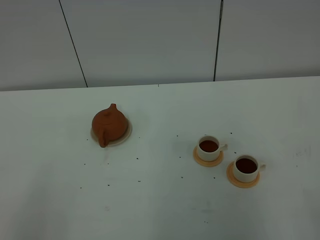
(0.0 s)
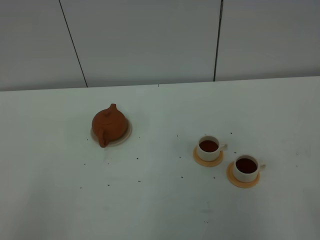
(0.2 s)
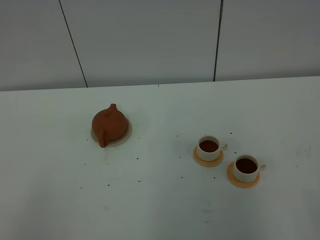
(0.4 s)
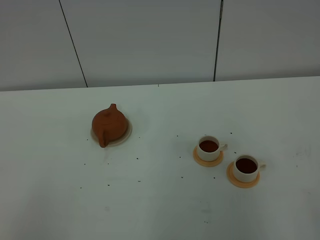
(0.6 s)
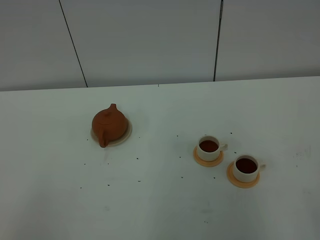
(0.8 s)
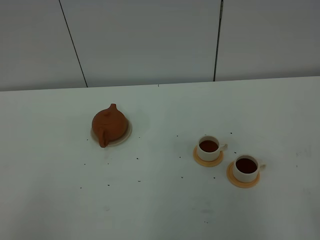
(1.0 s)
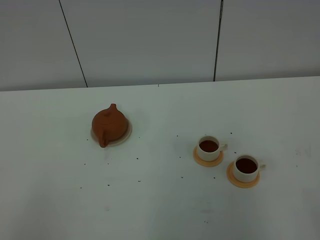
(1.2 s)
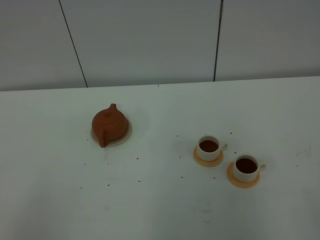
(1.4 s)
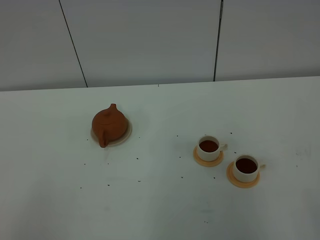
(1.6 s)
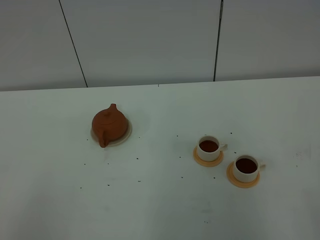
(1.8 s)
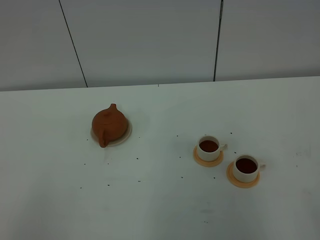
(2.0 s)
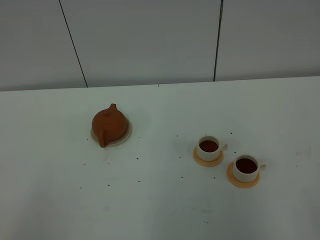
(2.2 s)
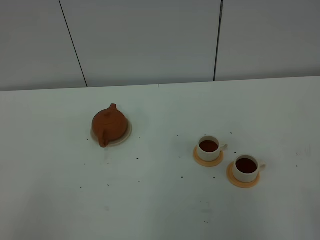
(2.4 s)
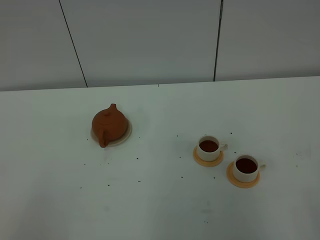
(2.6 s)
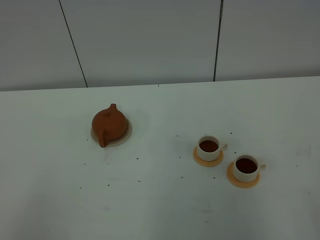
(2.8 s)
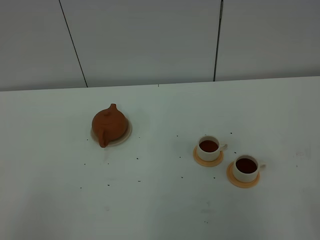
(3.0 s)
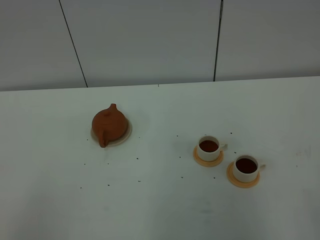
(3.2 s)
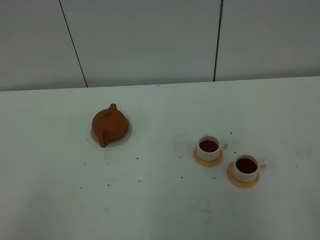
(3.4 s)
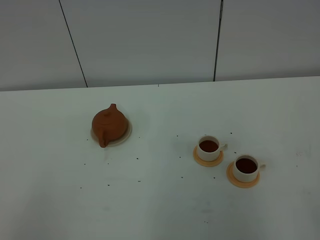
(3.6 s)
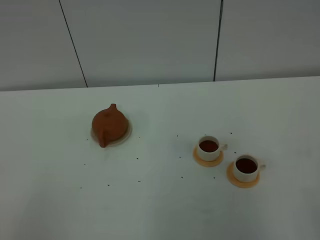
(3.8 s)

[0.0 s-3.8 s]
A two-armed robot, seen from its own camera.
Task of the whole recording: grasp the brown teapot and pour the tea into the two white teacups one by one, put the brown teapot back in its original place.
1.2 to 3.8 s: Neither gripper changes place.

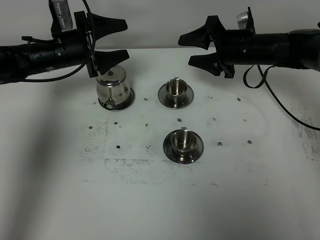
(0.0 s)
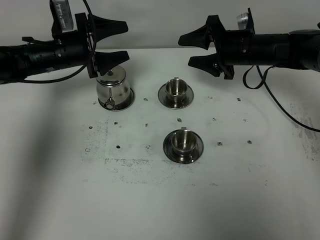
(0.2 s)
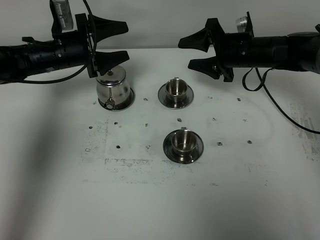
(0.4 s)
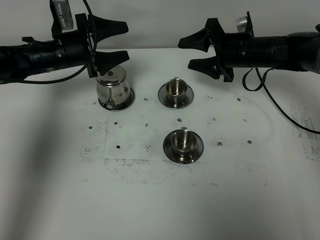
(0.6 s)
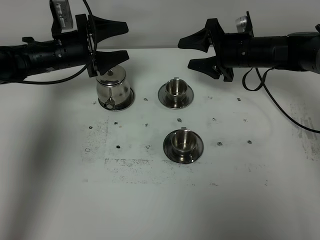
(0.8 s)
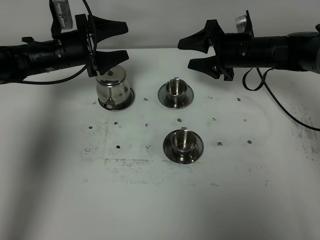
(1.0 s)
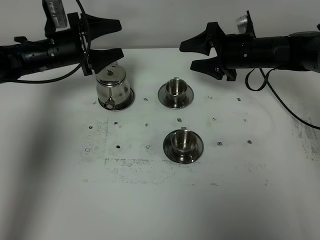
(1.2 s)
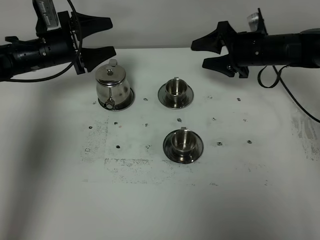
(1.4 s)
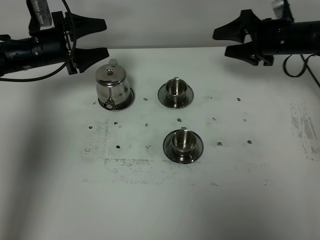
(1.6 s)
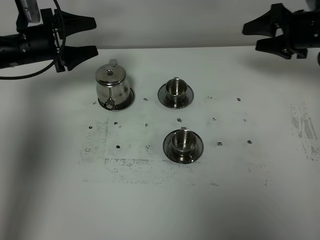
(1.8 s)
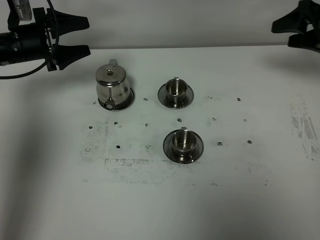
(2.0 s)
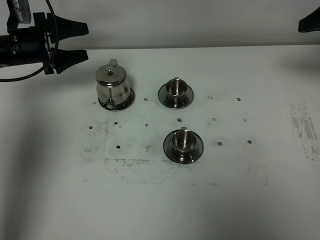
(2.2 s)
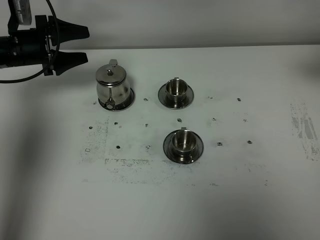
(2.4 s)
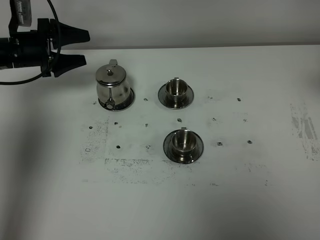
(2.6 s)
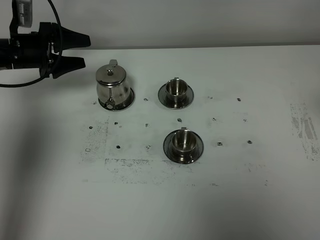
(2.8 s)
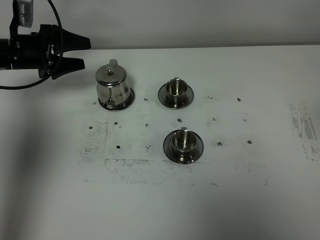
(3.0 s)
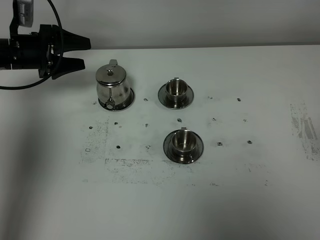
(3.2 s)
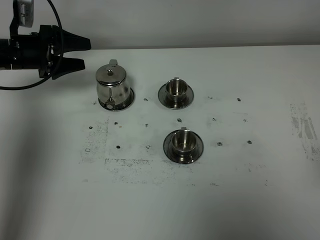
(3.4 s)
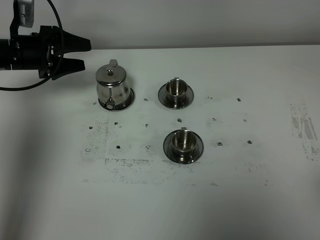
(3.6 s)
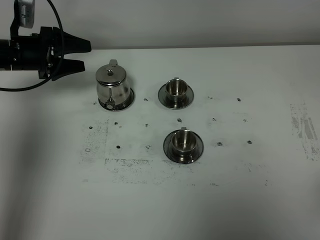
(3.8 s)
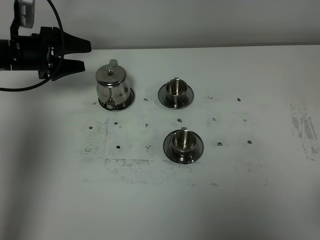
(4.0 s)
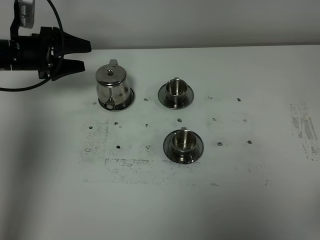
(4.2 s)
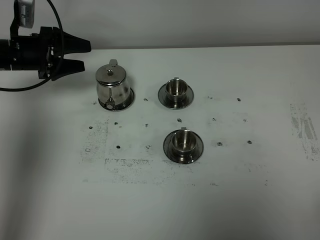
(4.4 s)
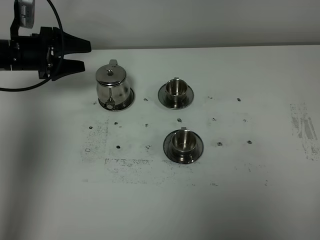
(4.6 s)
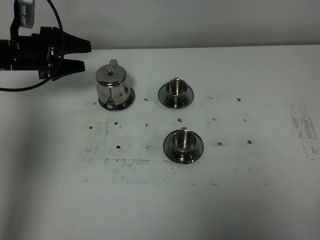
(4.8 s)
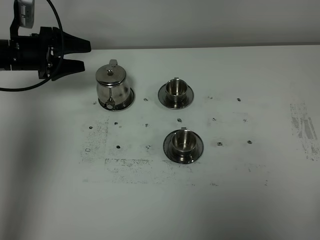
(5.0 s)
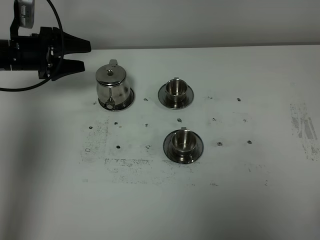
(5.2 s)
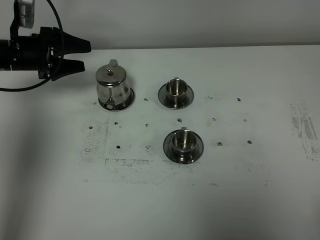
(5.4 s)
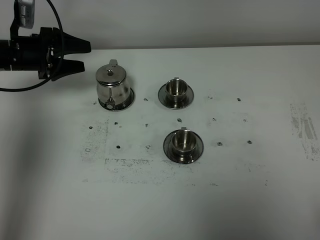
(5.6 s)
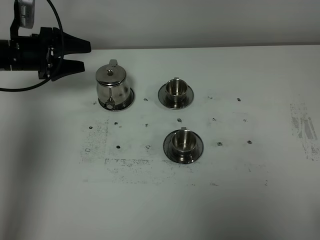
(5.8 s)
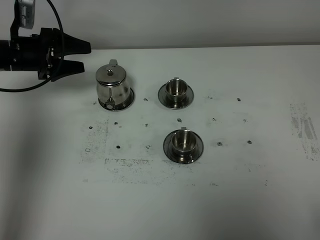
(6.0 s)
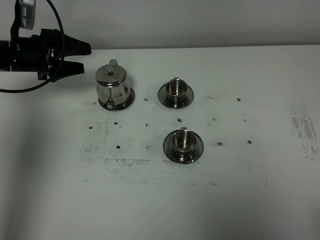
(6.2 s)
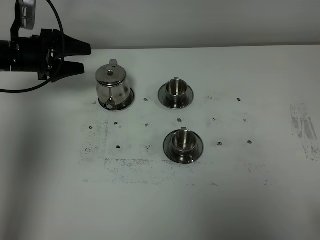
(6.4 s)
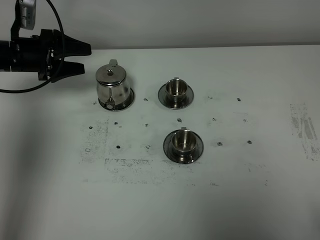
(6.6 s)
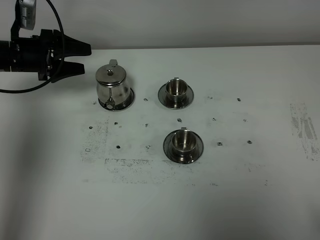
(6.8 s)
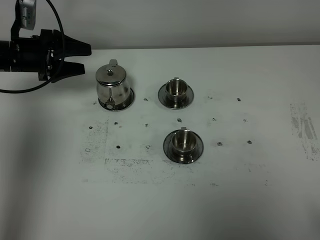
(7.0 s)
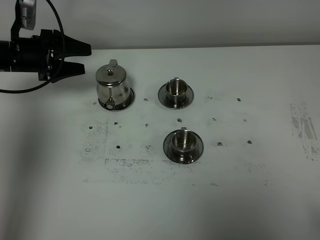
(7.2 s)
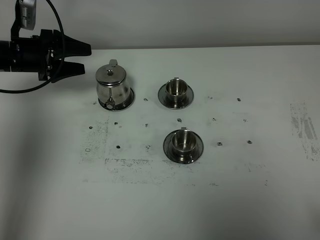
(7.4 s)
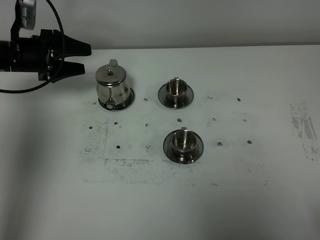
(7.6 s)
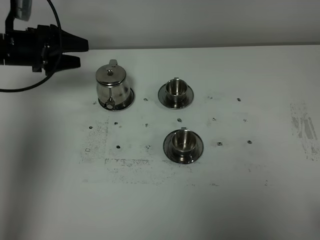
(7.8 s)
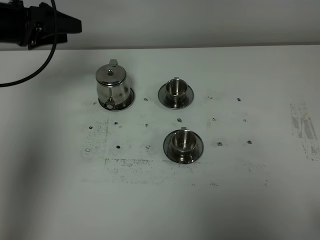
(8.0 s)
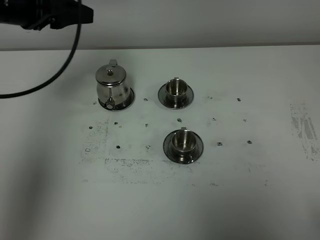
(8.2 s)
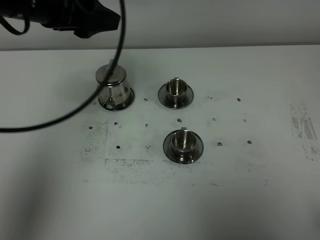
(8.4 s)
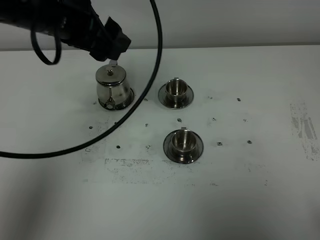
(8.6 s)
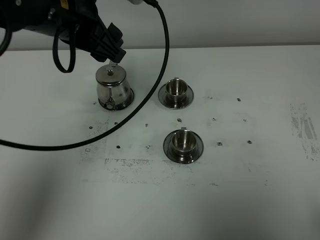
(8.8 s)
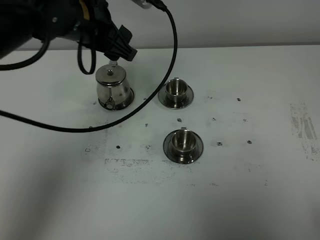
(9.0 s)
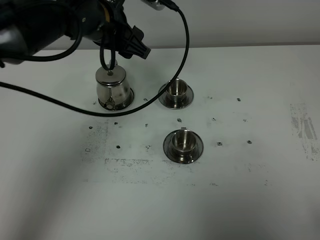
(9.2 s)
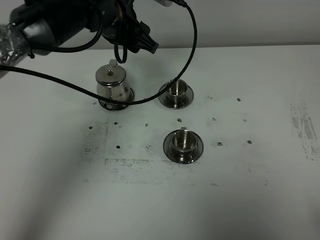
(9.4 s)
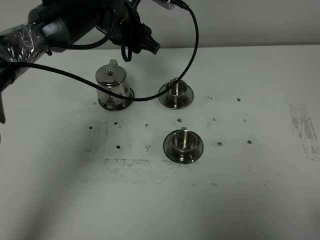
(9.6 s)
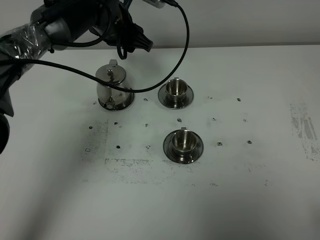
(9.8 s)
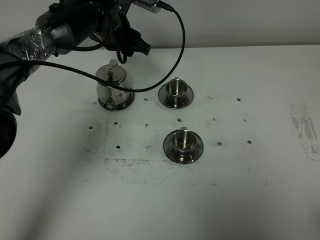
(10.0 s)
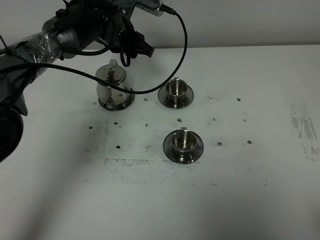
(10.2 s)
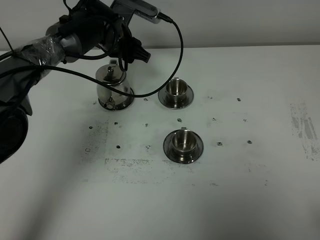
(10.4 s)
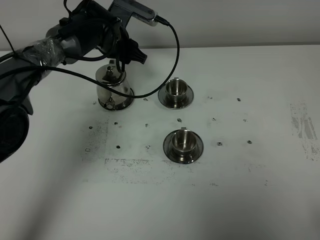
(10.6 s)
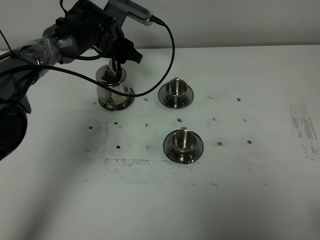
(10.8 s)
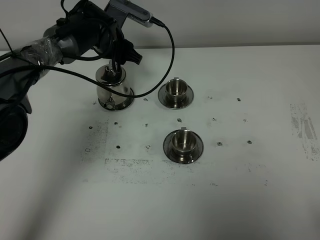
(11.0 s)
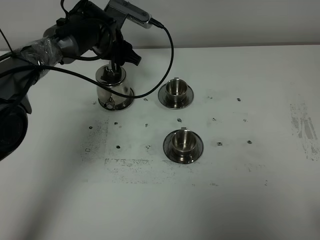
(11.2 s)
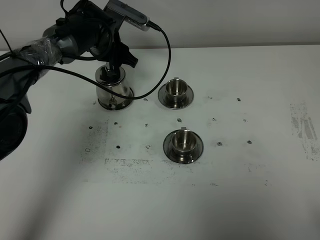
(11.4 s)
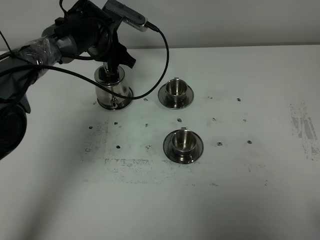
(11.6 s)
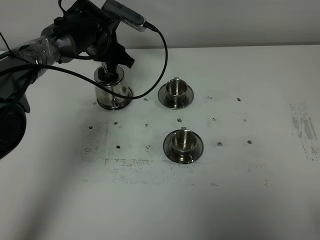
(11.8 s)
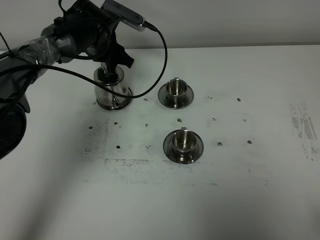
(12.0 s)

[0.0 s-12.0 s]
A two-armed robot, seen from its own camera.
Task of the whole recording: grasp the stainless steel teapot and pour the tea into the two stainless steel teacups one by one, put the stainless steel teapot back in its original place.
0.0 to 1.6 s: The right gripper is displaced to the right by roughly 10 cm.
1.6 to 3.0 s: The right gripper shifts about 35 cm backward and upward.
6.0 to 7.6 s: The two grippers keep their place.
7.6 to 9.0 s: The left gripper moves to the right and upward, about 25 cm.
9.0 to 10.4 s: The left gripper shifts roughly 15 cm forward and downward.
10.4 to 12.0 s: The grippers move only a little.

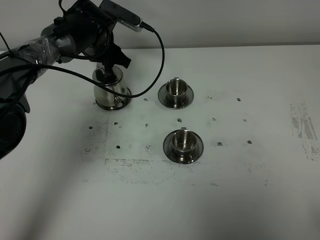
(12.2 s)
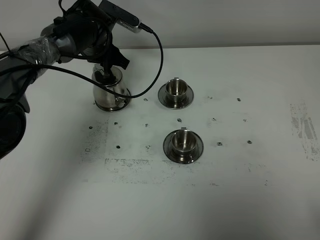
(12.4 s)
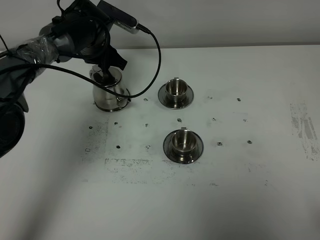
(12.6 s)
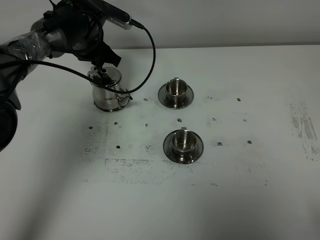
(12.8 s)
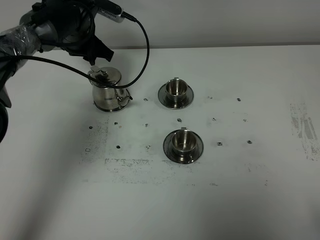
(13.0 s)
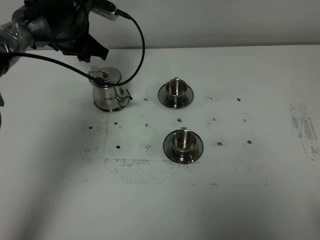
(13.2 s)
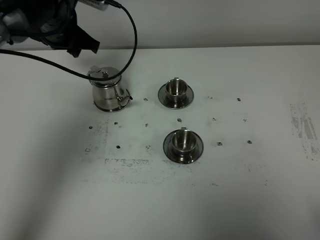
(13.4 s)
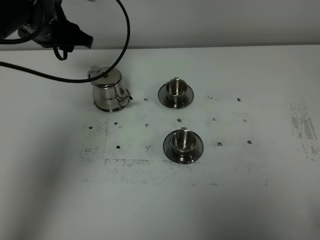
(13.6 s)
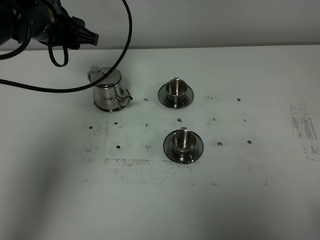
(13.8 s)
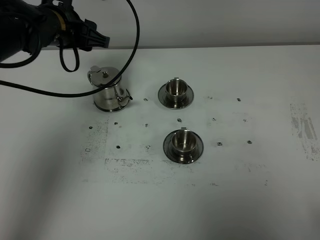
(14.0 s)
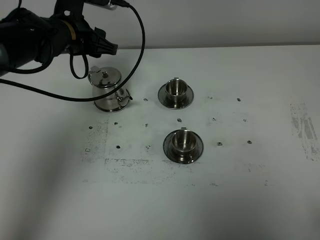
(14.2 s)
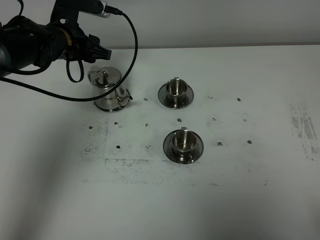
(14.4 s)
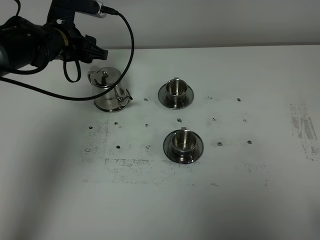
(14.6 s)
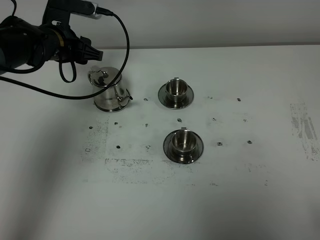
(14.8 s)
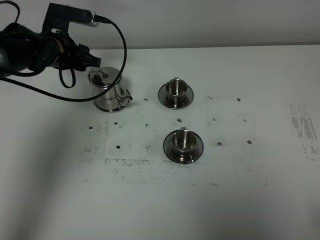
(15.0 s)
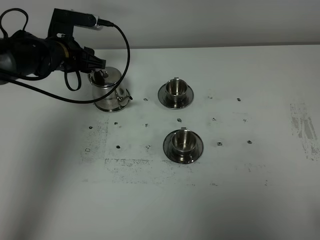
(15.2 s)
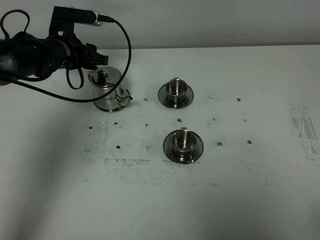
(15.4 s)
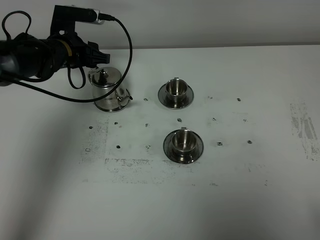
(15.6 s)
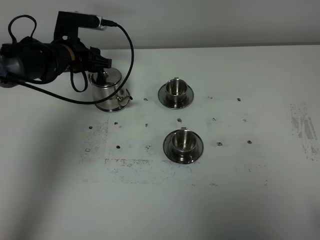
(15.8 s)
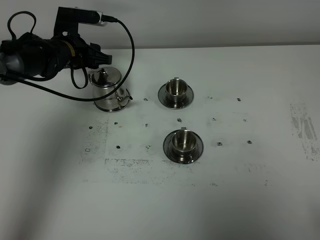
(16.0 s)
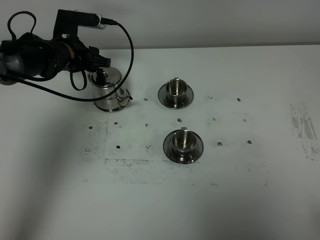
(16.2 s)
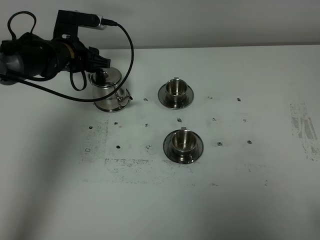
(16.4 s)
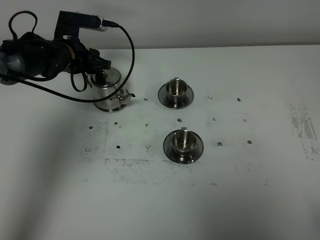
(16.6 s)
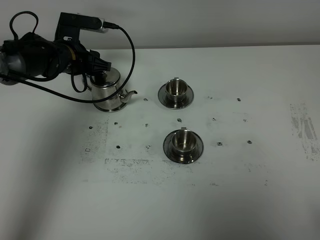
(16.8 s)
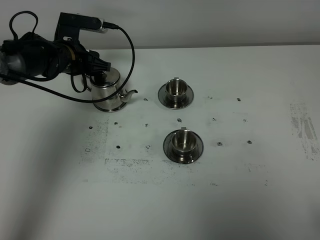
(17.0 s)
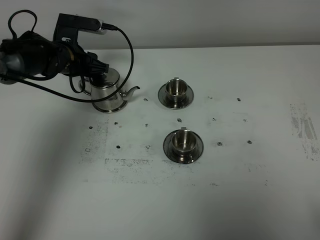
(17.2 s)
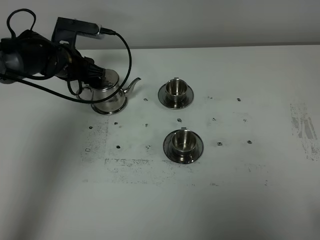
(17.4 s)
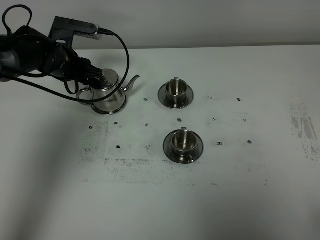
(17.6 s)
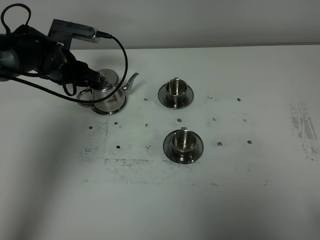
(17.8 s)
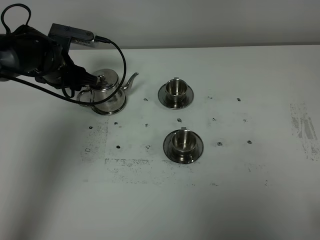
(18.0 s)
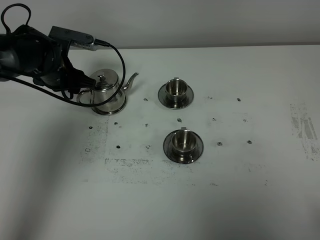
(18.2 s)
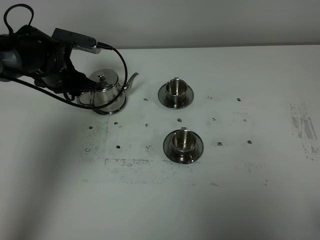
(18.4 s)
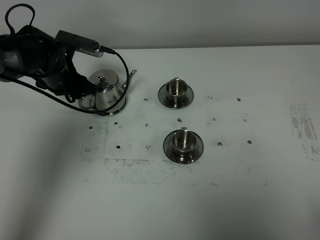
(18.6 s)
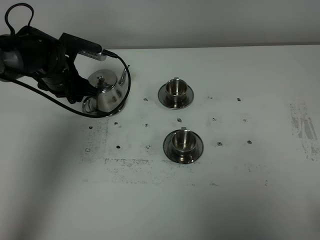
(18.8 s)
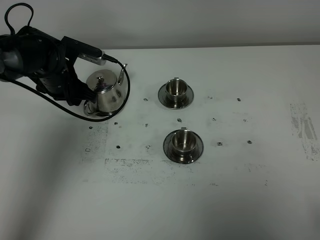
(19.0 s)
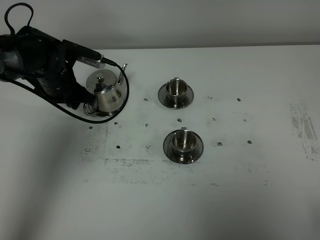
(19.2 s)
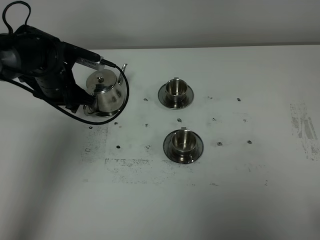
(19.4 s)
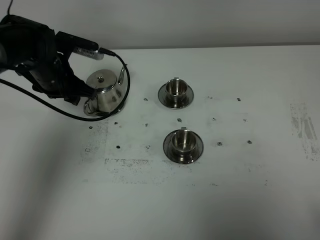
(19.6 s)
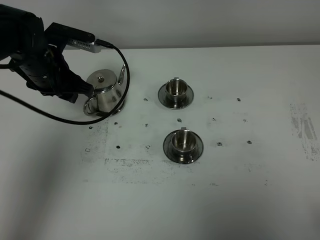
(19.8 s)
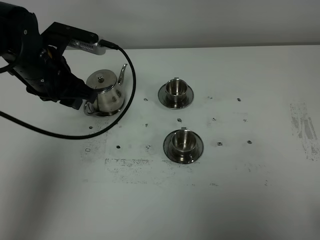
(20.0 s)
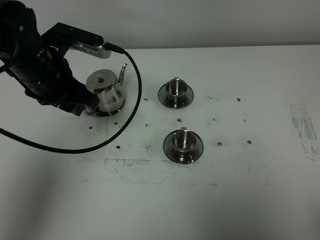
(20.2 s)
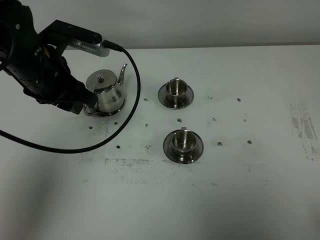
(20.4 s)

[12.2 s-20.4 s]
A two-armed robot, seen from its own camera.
Task of the whole recording: grasp the stainless steel teapot and pour the tea into the two stainless steel teacups one by one, put the stainless steel teapot back in its original place.
12.2 to 13.8 s: The left gripper shifts some 15 cm upward, backward and to the left.
13.8 to 15.4 s: The left gripper is displaced downward and forward by some 10 cm.
15.4 to 17.2 s: The grippers stay close to where they were, moving slightly.
18.8 to 20.4 s: The left gripper goes approximately 15 cm upward and backward.
